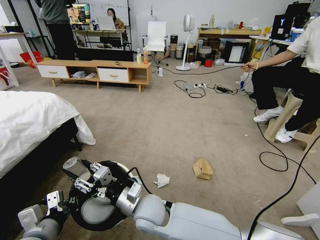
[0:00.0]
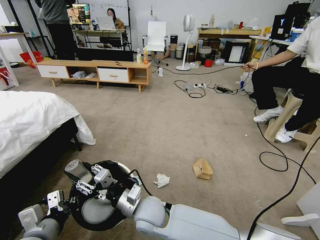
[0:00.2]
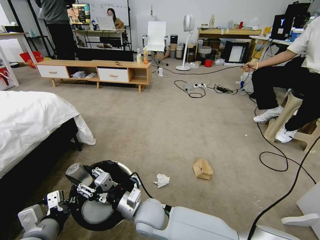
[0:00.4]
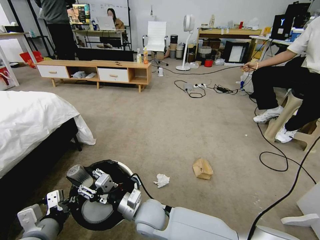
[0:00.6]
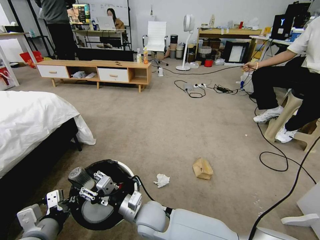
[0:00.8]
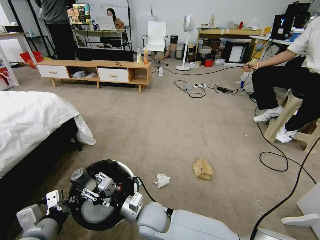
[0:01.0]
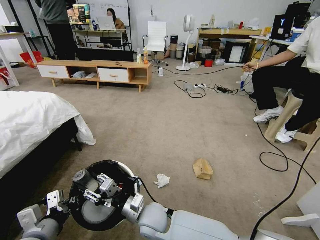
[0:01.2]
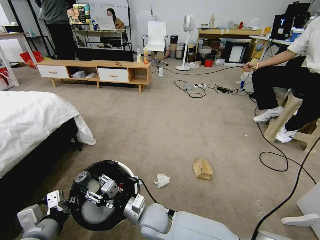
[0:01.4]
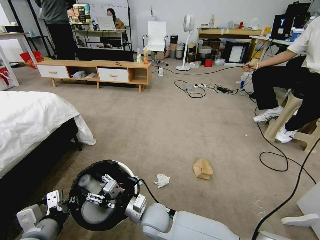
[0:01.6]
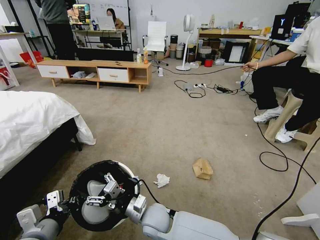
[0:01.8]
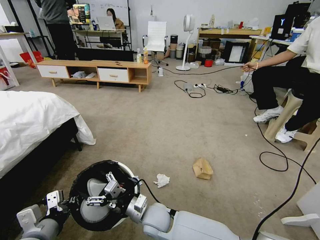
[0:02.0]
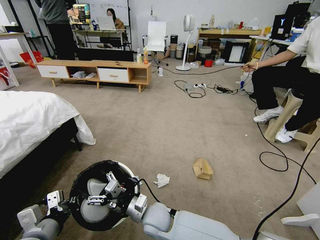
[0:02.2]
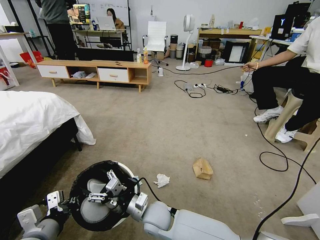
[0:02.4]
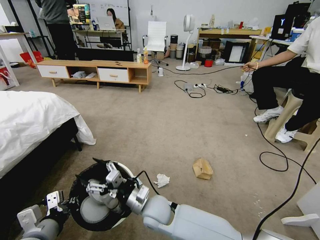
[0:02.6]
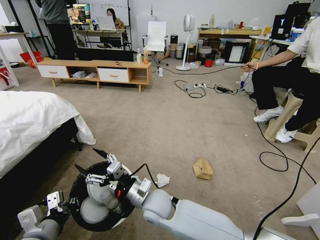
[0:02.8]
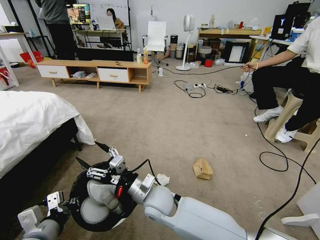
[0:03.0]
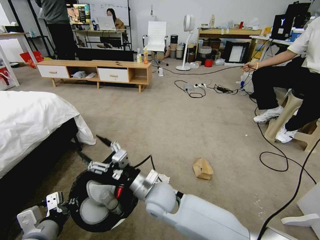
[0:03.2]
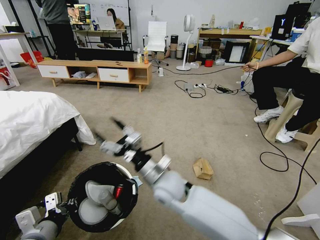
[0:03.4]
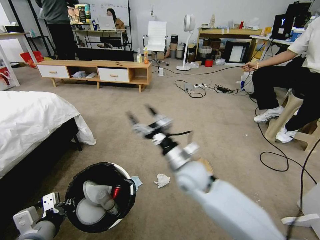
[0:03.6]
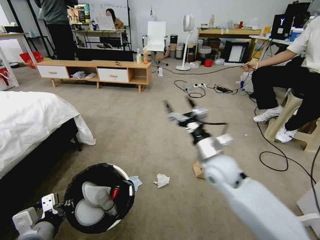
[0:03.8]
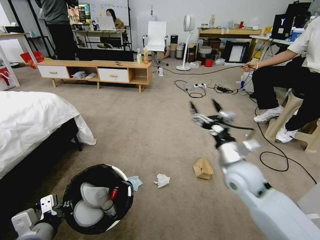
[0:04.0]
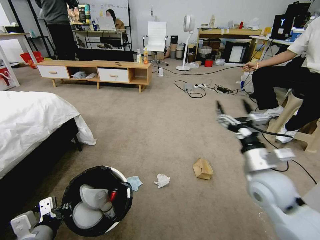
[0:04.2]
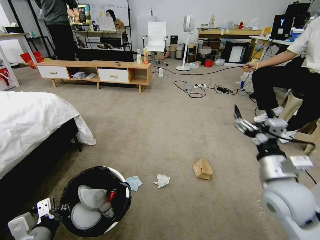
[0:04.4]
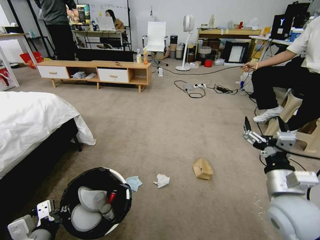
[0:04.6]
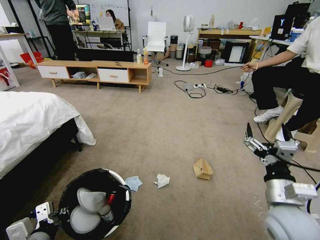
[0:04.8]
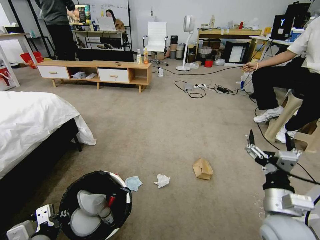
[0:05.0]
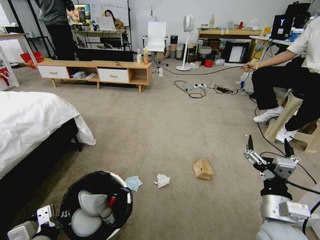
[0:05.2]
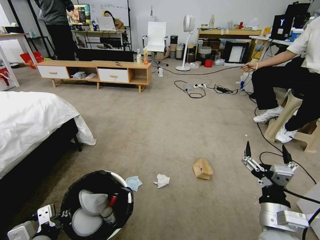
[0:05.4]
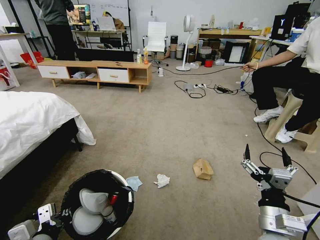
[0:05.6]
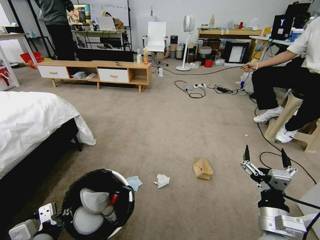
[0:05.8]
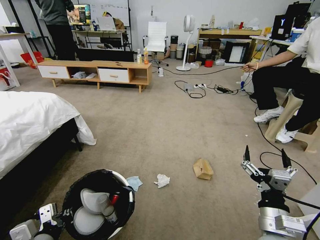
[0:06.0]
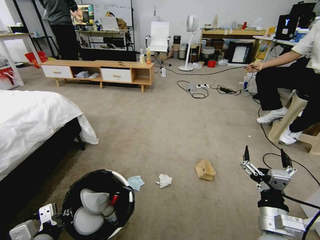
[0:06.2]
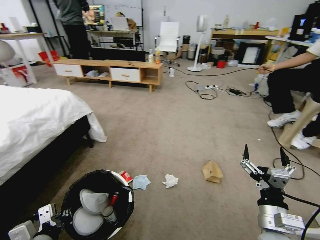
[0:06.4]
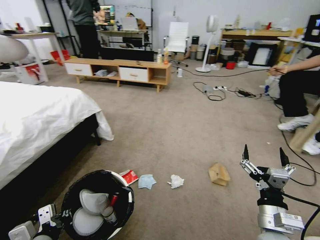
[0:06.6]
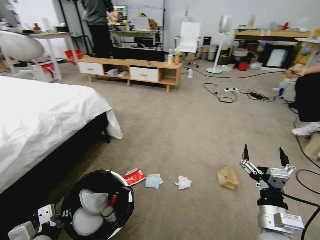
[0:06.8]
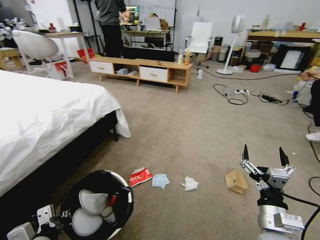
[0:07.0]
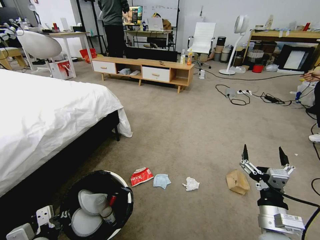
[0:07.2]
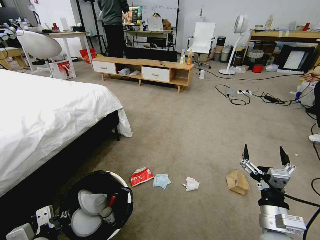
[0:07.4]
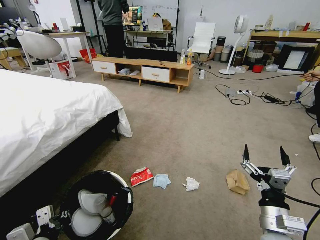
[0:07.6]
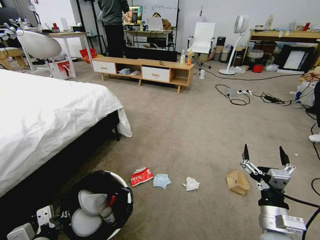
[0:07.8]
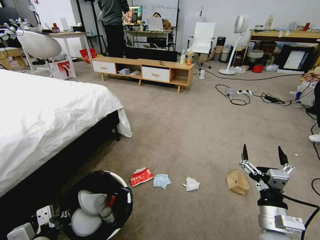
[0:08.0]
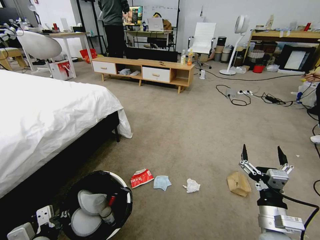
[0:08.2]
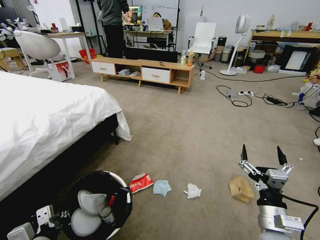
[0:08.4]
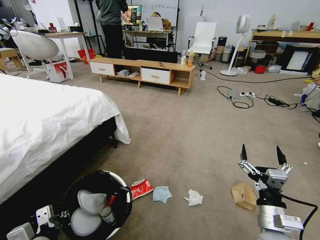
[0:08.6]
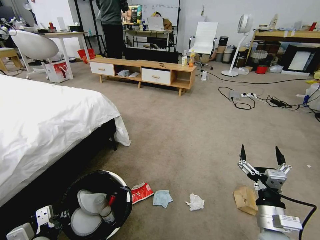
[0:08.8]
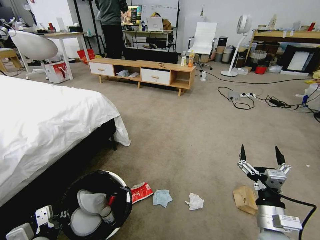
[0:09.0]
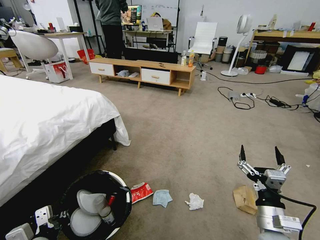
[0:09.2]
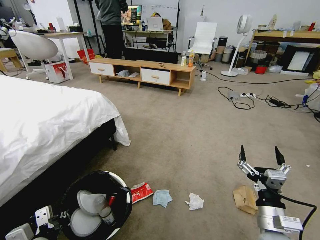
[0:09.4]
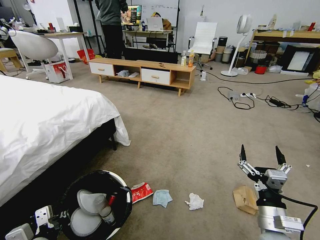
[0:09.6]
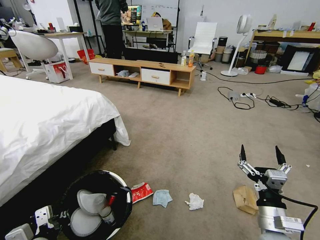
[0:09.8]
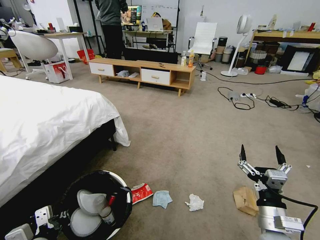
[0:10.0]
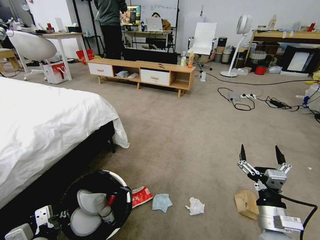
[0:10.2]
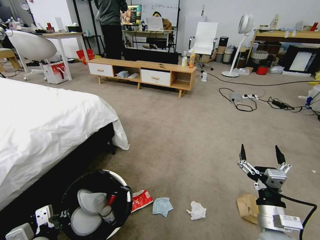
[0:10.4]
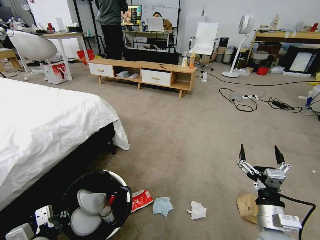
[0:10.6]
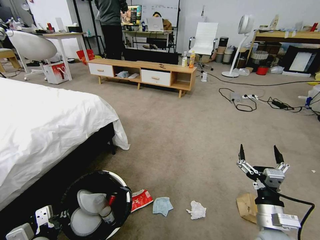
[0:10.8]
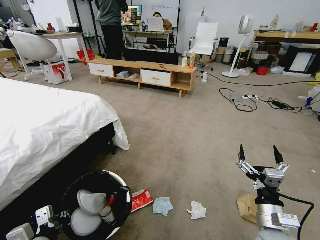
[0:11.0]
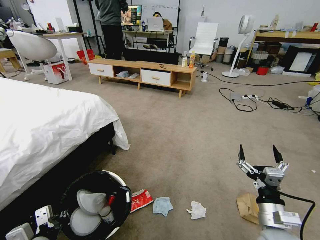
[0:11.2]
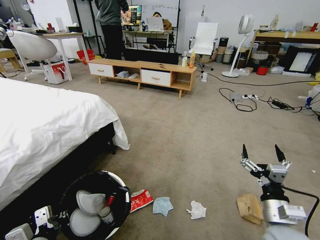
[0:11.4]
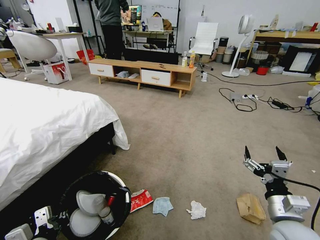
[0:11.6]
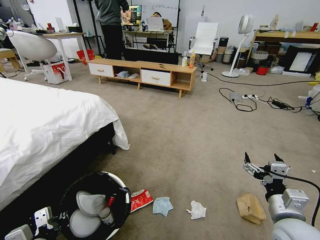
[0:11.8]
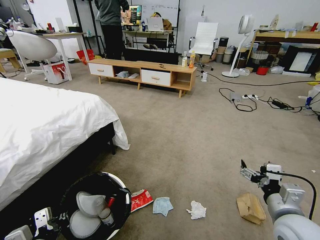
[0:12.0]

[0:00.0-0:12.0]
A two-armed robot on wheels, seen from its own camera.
Task of the whole recording: Pick up the trash bin and place the garbage on the floor into it.
0:00.0 to 0:01.6: The right gripper goes some 5 cm downward.
0:01.6 to 0:03.0: The right gripper heads upward, covering approximately 5 cm.
0:03.0 to 0:04.4: The right gripper travels to the right by approximately 30 cm.
0:04.4 to 0:06.0: The right gripper heads downward and backward, covering about 15 cm.
0:09.0 to 0:10.4: Both grippers stay about where they are.
0:10.4 to 0:12.0: The right gripper changes place by roughly 5 cm.

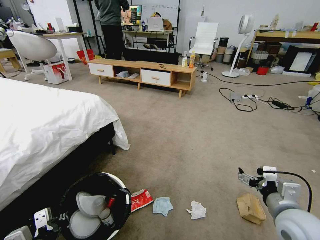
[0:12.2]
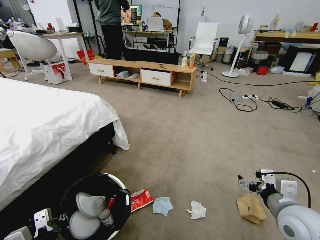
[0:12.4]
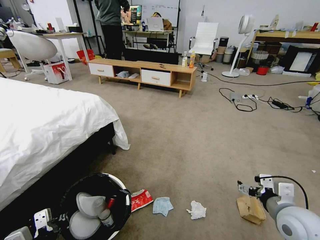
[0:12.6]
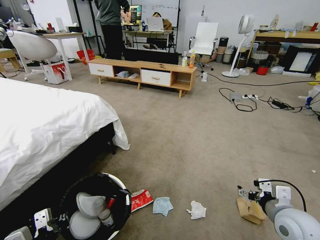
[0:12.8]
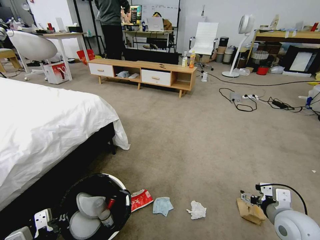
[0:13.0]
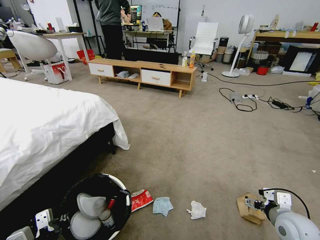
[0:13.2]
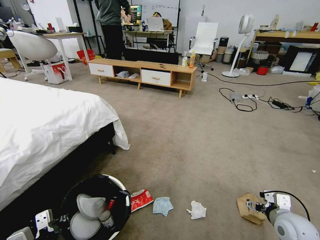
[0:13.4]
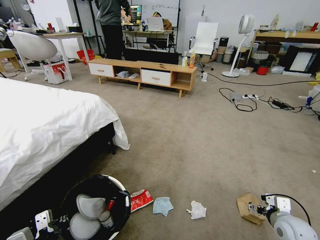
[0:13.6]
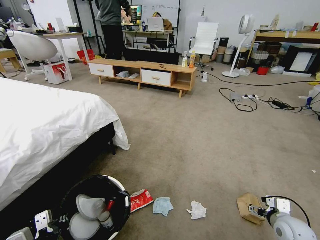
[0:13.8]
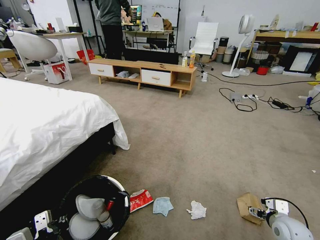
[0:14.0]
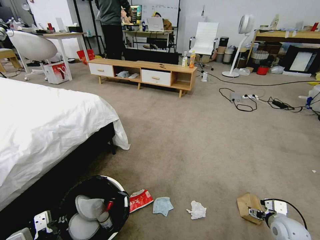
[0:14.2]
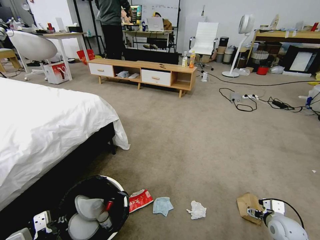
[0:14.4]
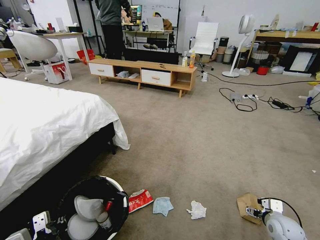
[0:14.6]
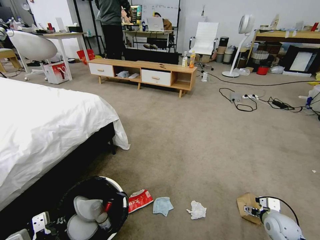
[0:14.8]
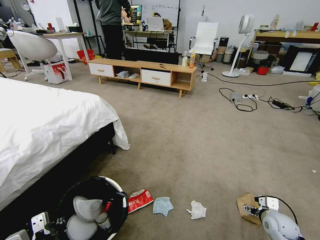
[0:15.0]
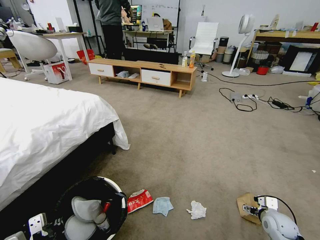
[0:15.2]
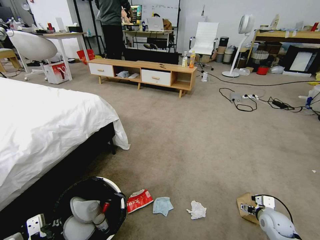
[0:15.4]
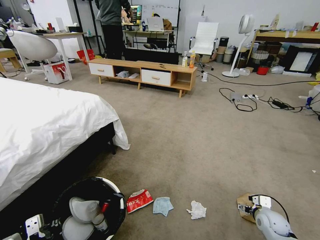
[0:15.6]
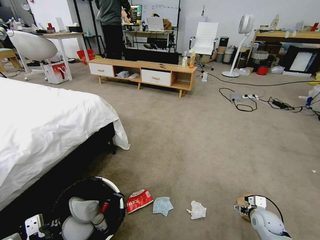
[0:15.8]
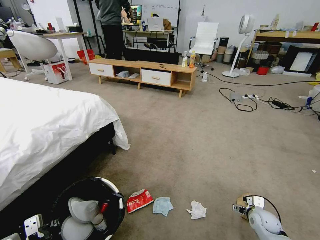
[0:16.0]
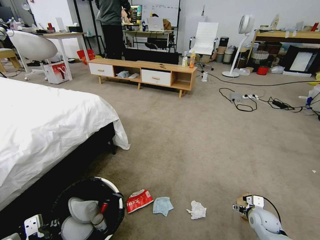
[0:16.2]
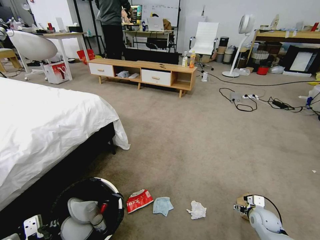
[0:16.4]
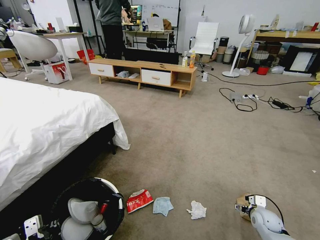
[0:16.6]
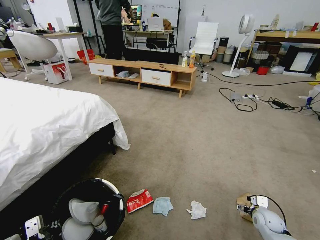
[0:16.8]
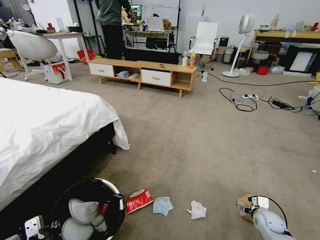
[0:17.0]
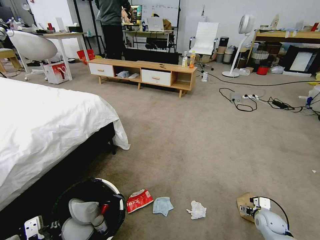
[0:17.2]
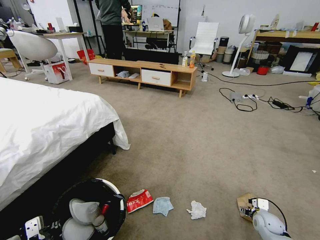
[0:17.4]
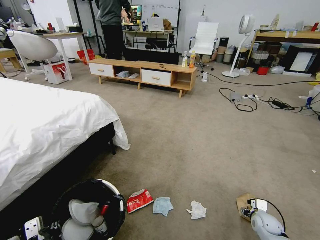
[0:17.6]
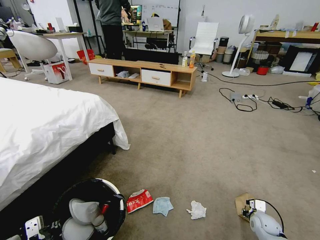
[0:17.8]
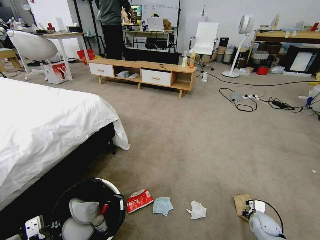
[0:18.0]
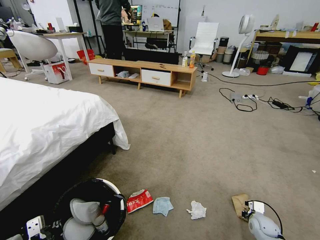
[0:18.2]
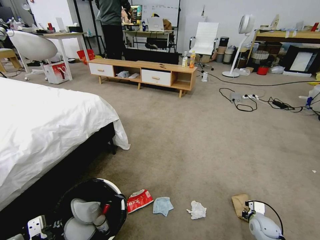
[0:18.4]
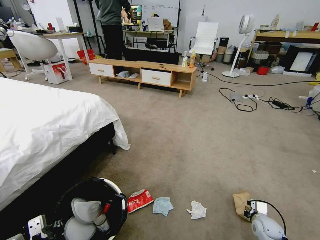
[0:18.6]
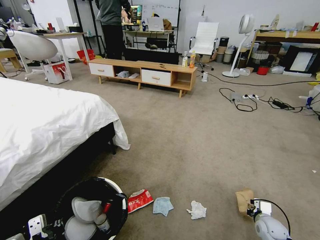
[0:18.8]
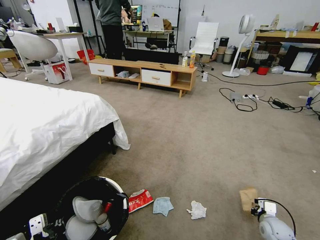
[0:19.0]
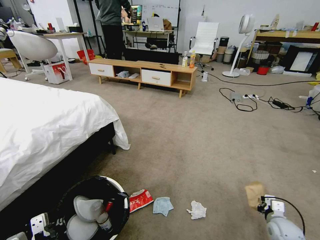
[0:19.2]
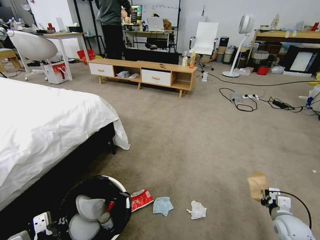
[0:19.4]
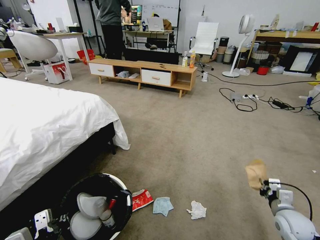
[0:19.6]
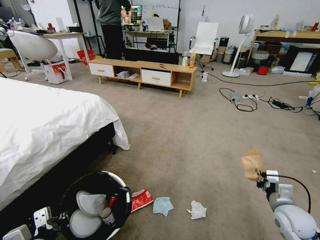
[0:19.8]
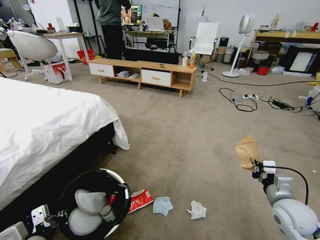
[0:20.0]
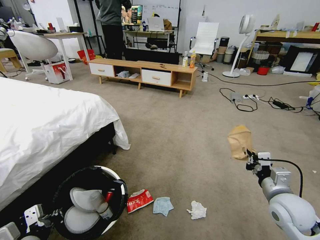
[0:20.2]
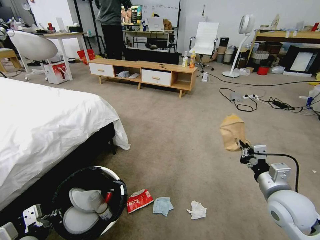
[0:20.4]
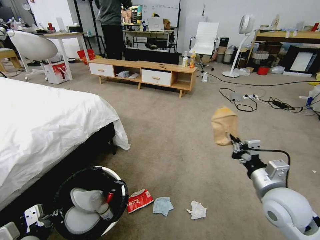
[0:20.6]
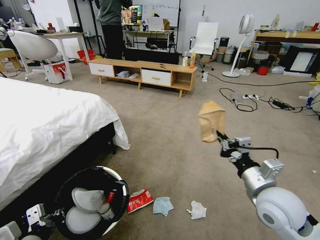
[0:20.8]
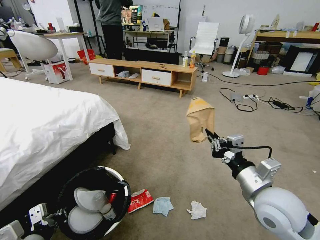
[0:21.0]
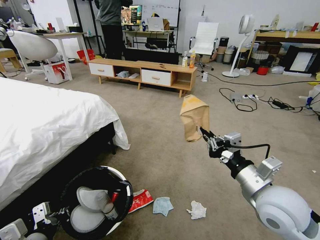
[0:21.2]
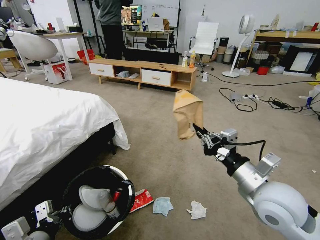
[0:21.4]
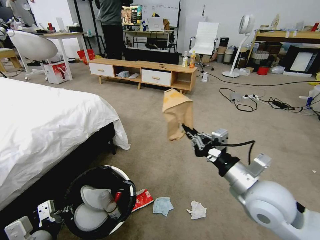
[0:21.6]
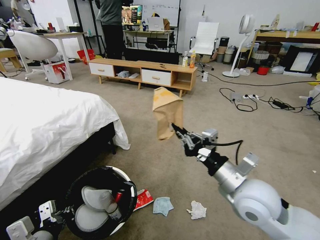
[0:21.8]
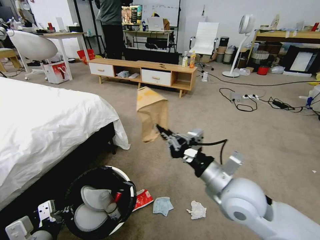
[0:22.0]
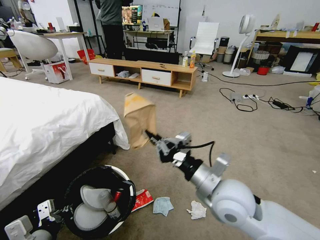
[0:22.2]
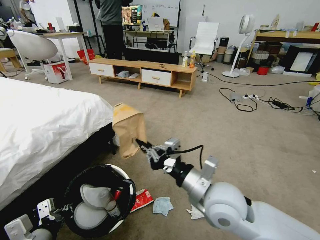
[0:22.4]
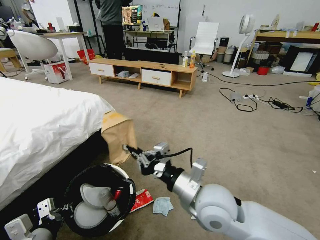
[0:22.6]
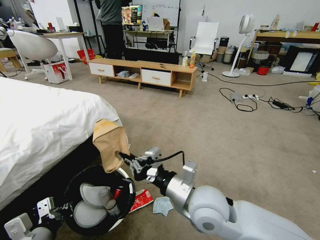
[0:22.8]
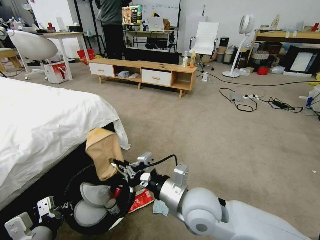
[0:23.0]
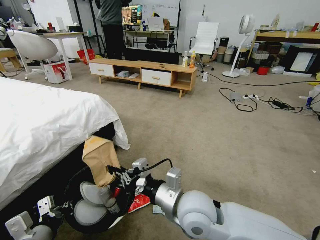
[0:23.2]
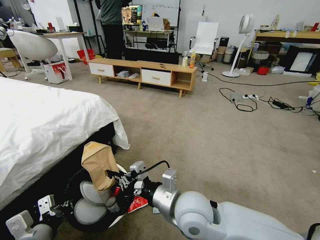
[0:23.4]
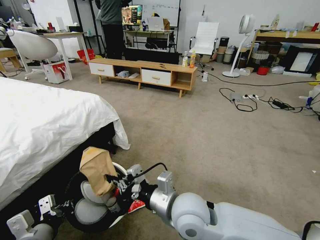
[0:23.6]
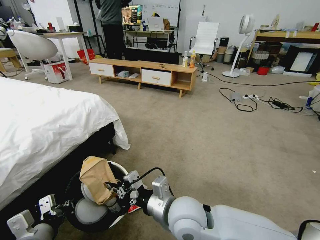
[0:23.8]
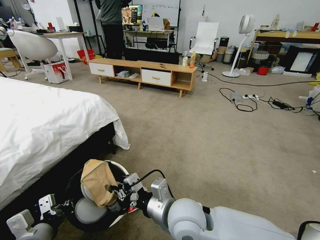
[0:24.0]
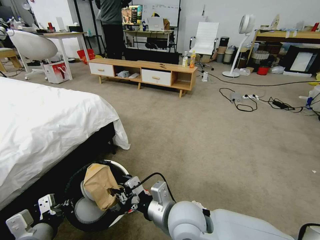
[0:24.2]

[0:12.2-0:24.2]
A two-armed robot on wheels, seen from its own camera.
Task of the whole recording: Pick up the trash bin and place the garbage on the floor into it.
0:12.2 to 0:13.8: The right gripper heads downward and to the right, covering roughly 15 cm.
0:13.8 to 0:15.2: The right gripper travels downward by approximately 5 cm.
0:15.2 to 0:16.6: There are only small adjustments of the grippers.
0:16.6 to 0:18.2: The right gripper closes its fingers.
0:18.2 to 0:19.8: The right gripper heads upward, covering roughly 20 cm.
0:19.8 to 0:21.2: The right gripper is displaced upward and to the left by roughly 20 cm.
0:21.2 to 0:22.6: The right gripper is displaced to the left by about 15 cm.
0:22.6 to 0:24.2: The right gripper heads to the left, covering approximately 5 cm.
